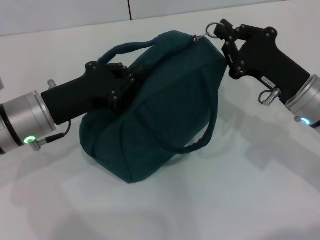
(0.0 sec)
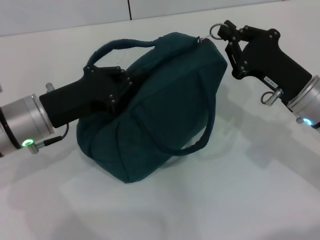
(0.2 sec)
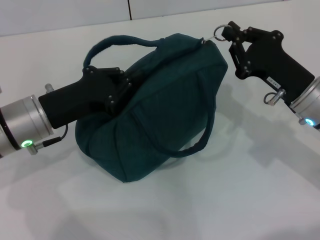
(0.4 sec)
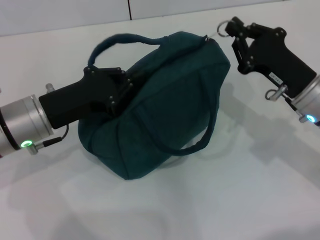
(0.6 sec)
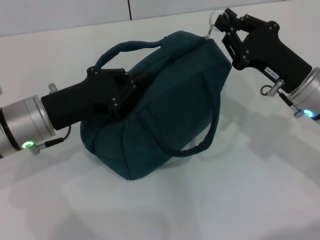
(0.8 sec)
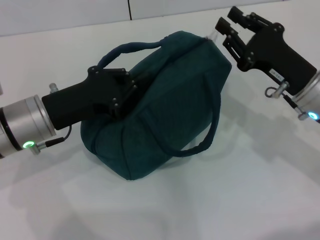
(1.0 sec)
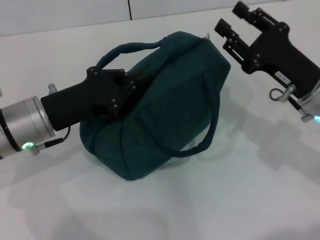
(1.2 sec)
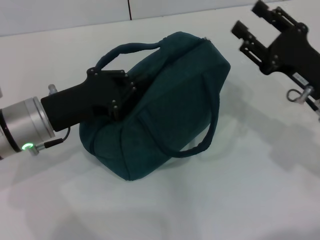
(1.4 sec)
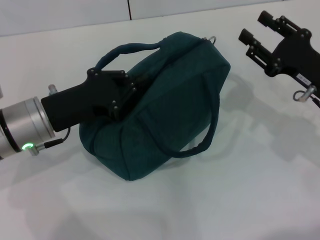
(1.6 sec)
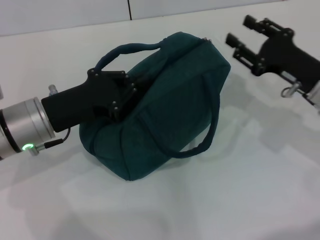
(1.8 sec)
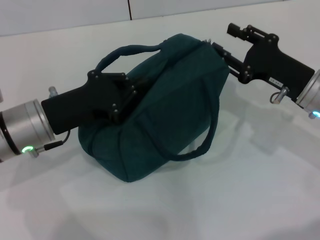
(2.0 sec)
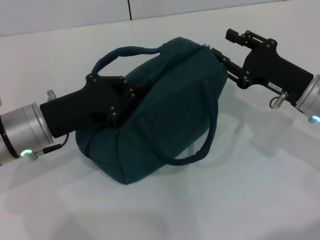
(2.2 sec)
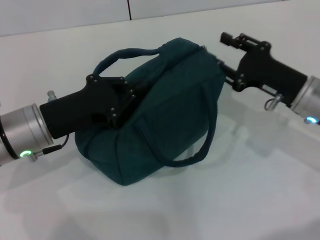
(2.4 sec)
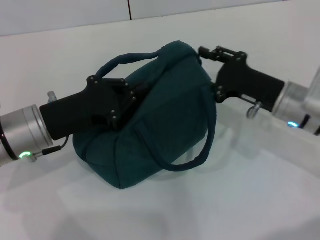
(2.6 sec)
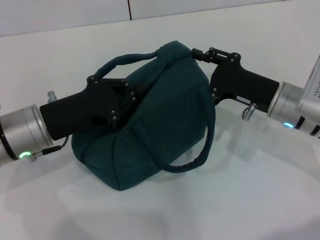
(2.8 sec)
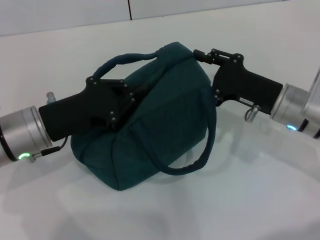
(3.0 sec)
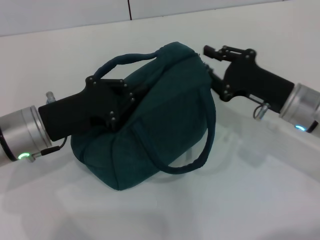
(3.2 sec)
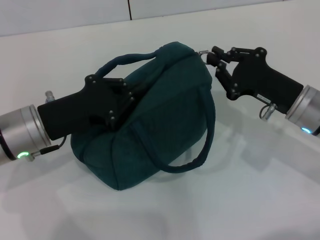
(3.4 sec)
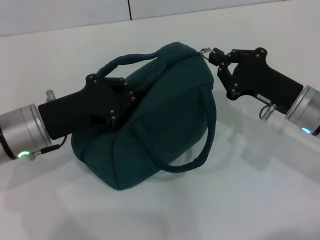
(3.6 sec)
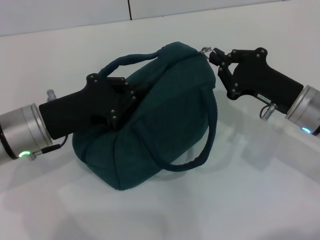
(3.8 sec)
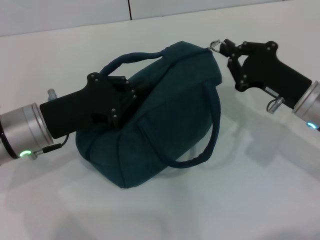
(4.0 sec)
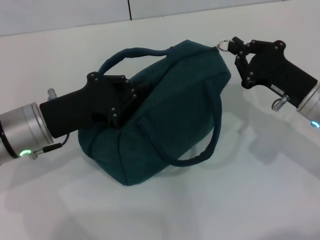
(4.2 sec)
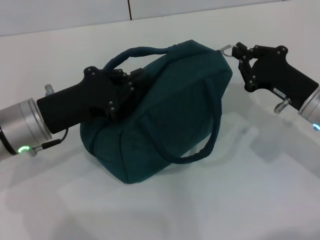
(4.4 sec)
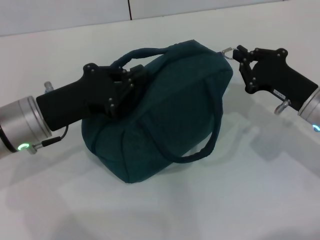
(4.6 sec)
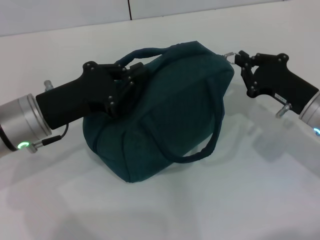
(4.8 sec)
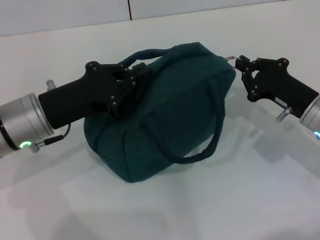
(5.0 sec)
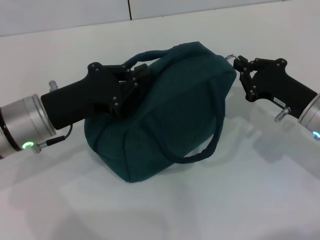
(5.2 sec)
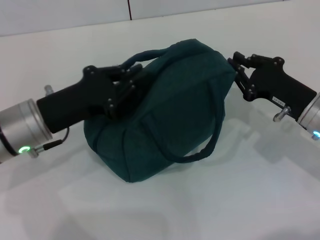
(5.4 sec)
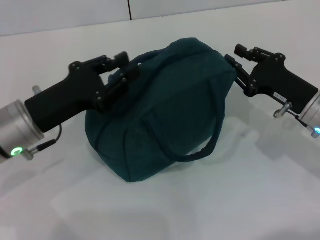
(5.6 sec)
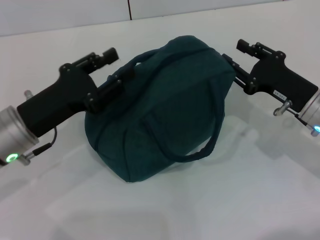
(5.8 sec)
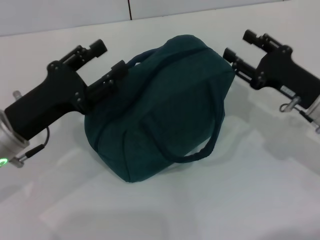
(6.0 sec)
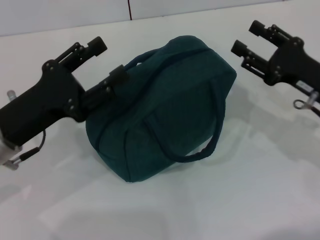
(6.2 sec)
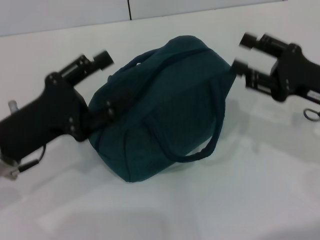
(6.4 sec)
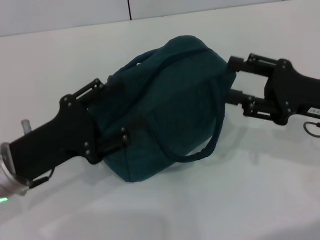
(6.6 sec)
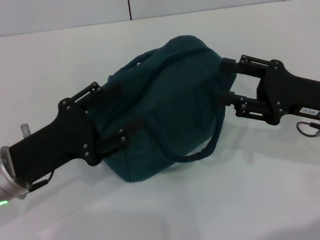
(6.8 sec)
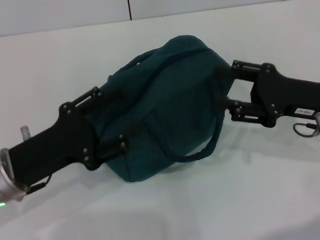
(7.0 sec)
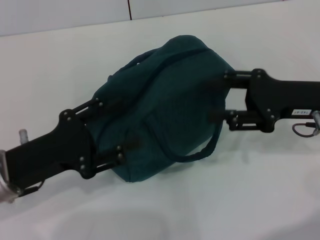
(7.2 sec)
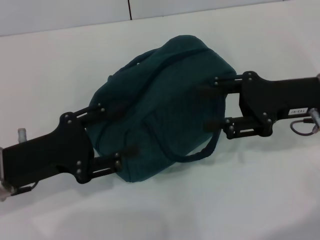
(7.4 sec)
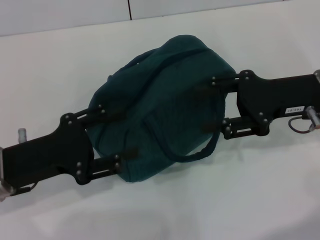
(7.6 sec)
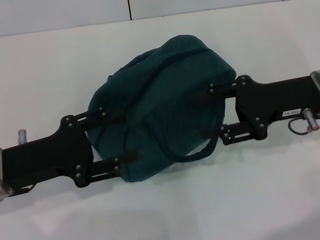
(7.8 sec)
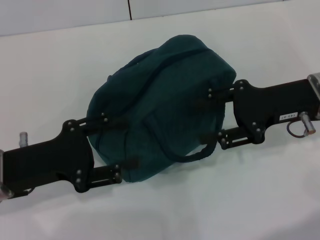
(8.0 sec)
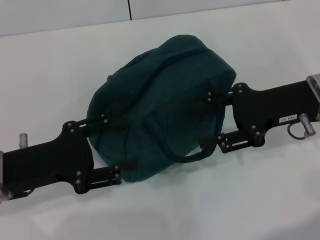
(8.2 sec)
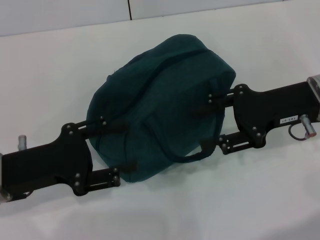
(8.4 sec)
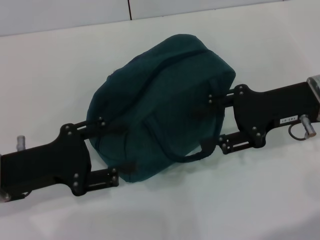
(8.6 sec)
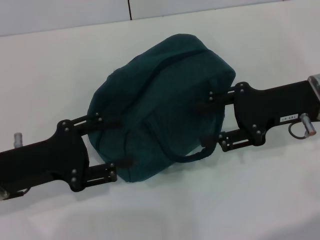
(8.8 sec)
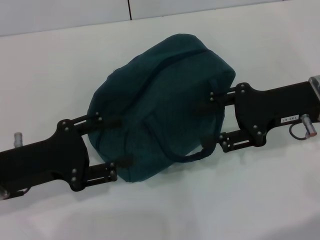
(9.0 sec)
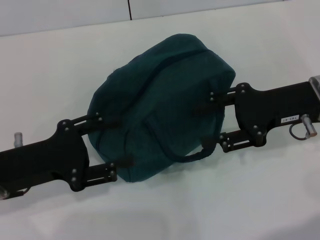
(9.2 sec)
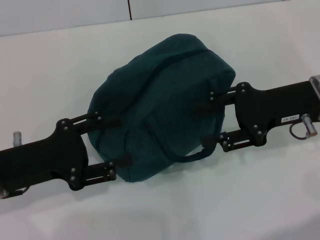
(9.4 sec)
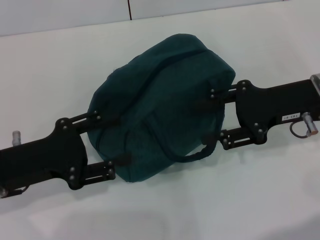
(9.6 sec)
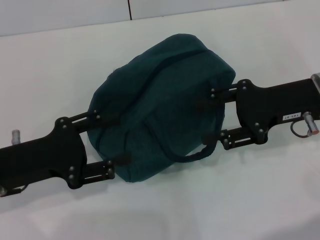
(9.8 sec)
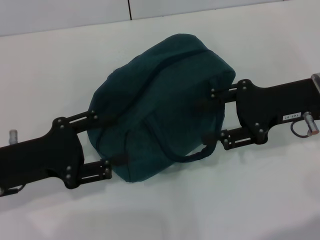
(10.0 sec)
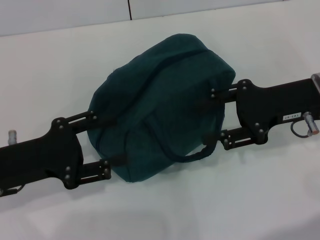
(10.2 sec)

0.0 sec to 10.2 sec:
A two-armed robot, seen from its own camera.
Step, 0.0 sec to 5.8 sec: Hold the lunch bag with your left hand.
0.0 sec to 1.4 sec: The right gripper opens.
1.4 sec to 3.0 sec: The right gripper changes place by roughly 5 cm.
3.0 sec to 4.4 sec: The right gripper closes up.
4.4 sec to 5.8 sec: The left gripper opens up.
5.8 sec to 7.2 sec: The right gripper shifts some 5 cm upward, and opens its fingers; the left gripper opens.
7.2 sec to 8.8 sec: The grippers stay close to where they were, moving slightly.
8.8 sec to 10.2 sec: Neither gripper changes place.

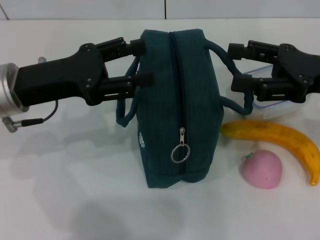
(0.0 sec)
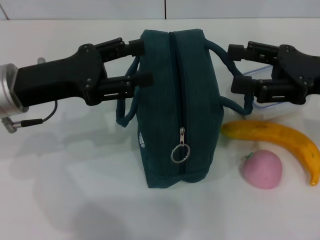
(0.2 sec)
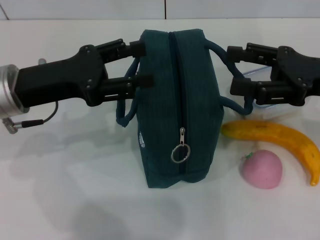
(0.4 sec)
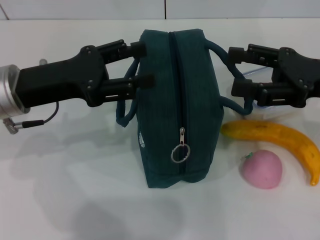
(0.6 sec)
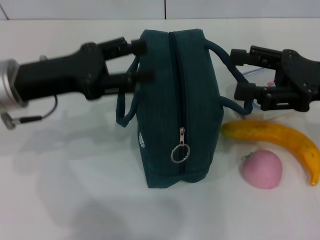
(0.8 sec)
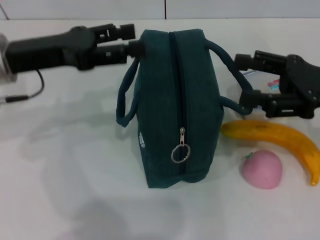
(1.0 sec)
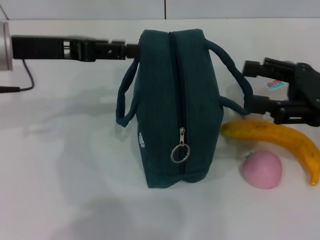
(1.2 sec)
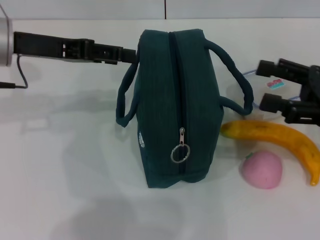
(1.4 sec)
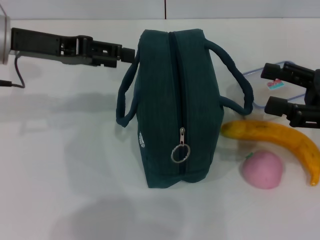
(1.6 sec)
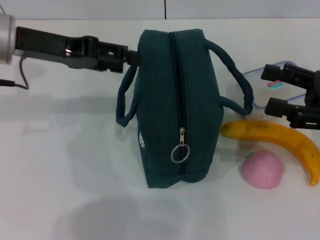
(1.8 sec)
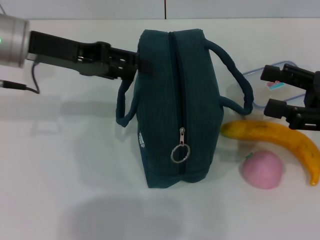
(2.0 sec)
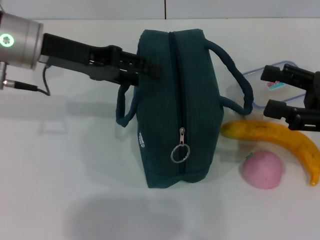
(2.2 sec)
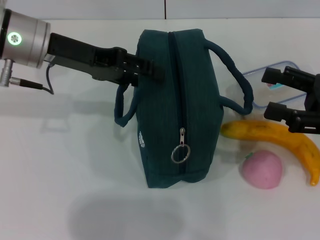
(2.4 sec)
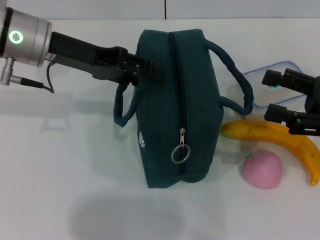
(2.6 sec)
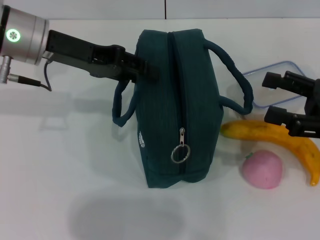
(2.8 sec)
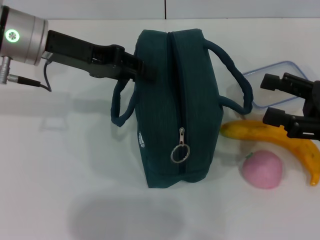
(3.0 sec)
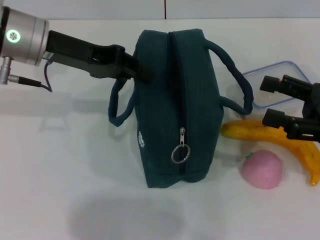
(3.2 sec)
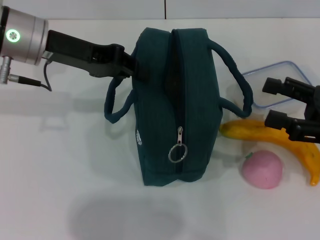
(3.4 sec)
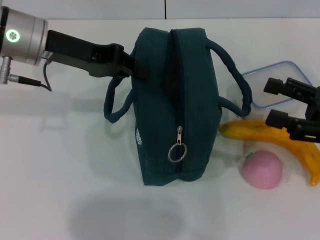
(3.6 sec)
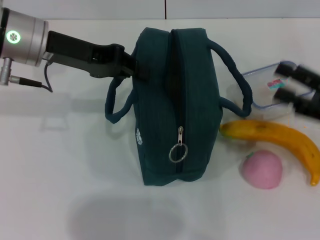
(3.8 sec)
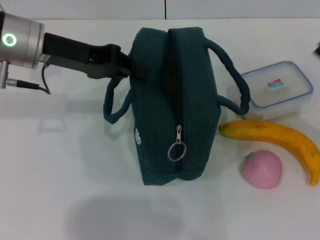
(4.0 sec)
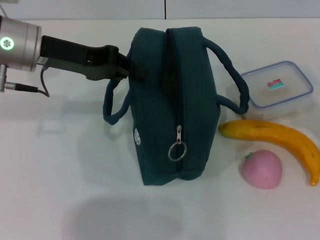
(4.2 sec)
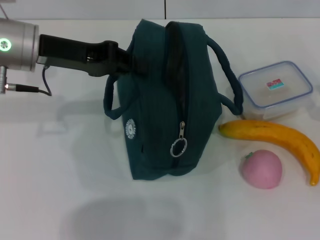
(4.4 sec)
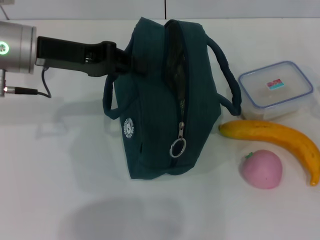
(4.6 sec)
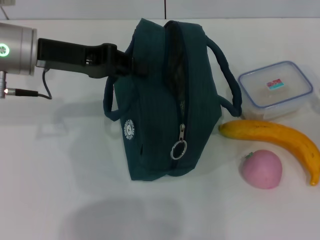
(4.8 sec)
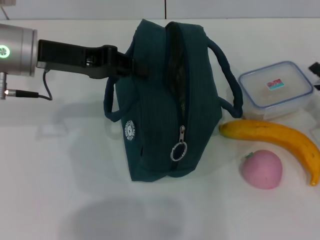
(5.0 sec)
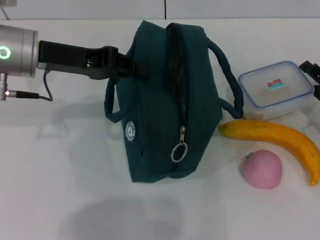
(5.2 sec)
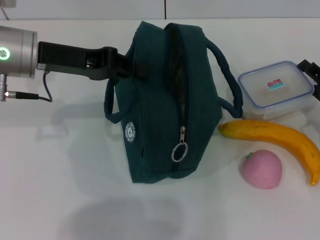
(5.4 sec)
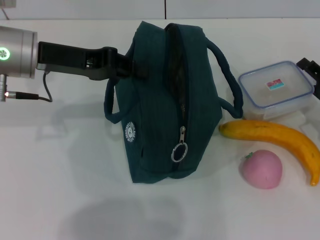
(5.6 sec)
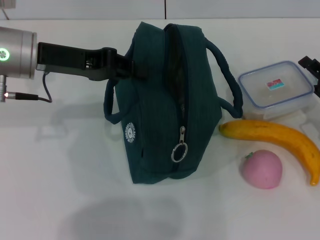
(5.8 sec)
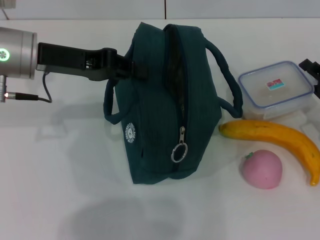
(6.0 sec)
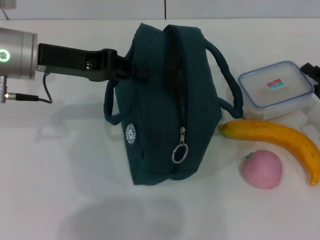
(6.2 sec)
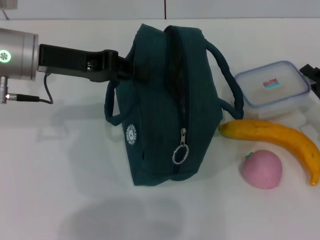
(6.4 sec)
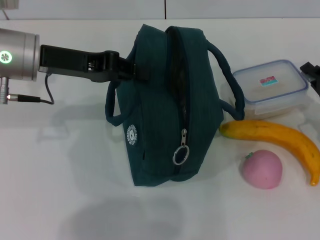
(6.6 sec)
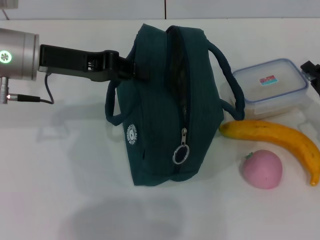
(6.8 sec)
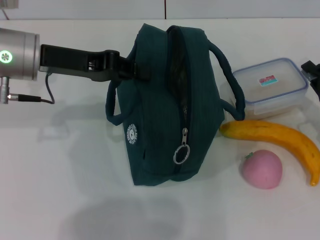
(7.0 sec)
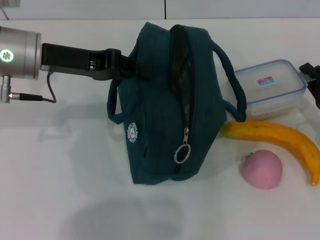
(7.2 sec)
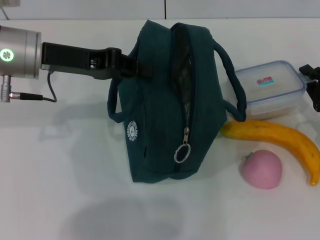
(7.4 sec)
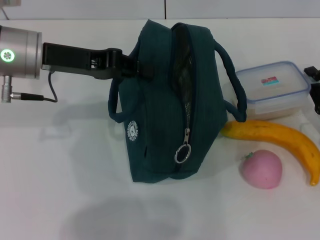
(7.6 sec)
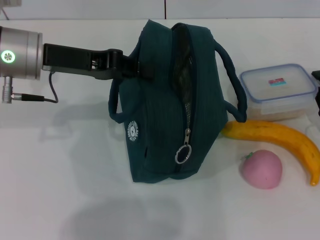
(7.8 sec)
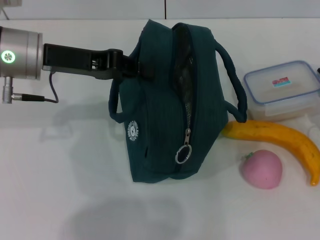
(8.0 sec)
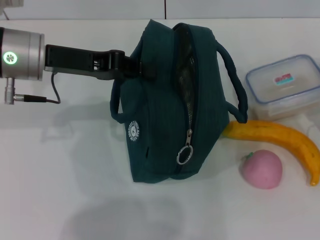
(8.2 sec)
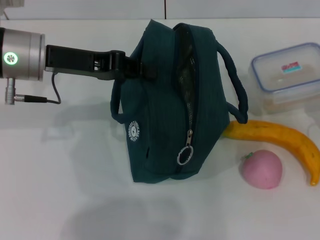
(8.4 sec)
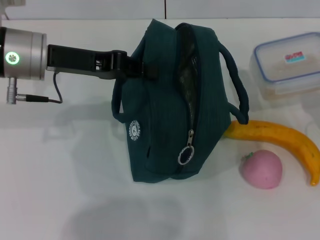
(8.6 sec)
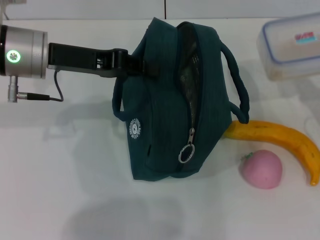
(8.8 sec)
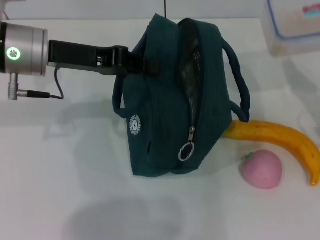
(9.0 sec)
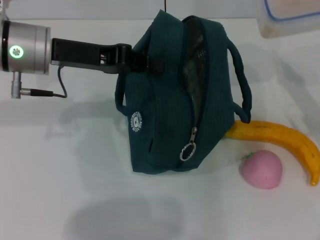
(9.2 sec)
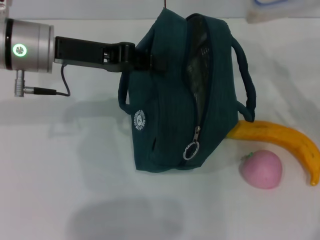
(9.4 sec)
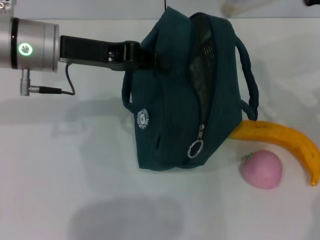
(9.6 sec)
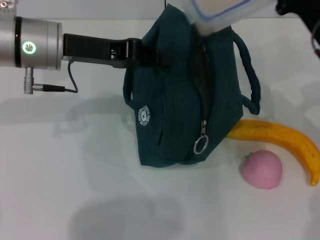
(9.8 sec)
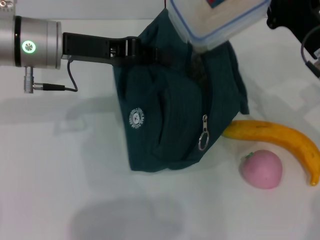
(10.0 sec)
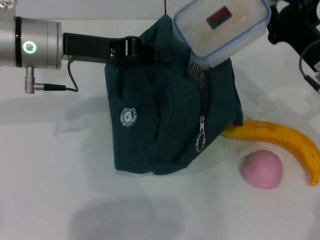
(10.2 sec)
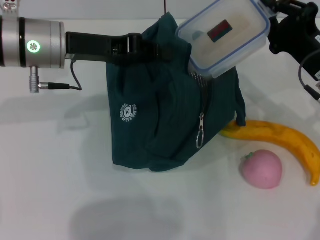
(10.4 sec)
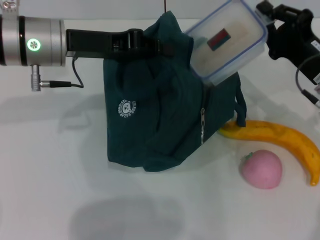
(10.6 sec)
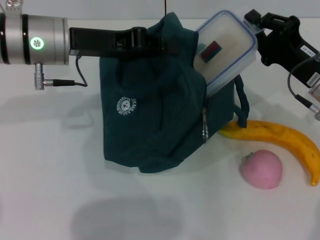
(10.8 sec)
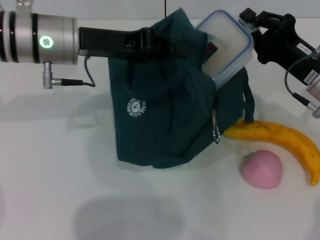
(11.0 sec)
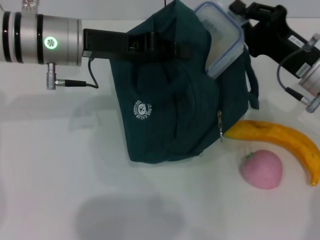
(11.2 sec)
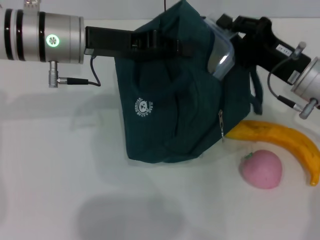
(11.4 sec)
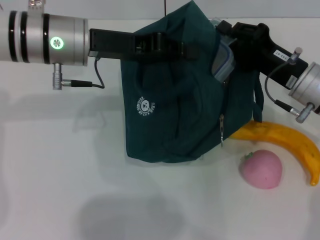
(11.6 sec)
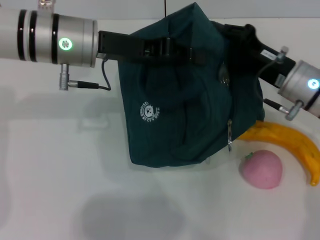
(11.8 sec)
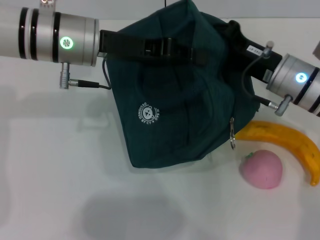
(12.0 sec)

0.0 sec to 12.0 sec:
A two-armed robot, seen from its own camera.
Step, 0.0 sec to 3.6 sec: Hold the lunch bag with your left hand.
Step, 3.8 sec to 6.8 sec: Pick up the lunch box with your right hand.
0.0 sec to 1.6 sec: The right gripper ends up some 5 cm from where it was, while the left gripper shifts some 10 cm upward and forward.
1.6 sec to 3.0 sec: The grippers stay close to where they were, moving slightly.
3.0 sec to 4.4 sec: The left gripper closes. The right gripper heads downward and to the right, covering roughly 10 cm.
4.4 sec to 6.0 sec: The right gripper moves forward, roughly 5 cm.
6.0 sec to 7.6 sec: The right gripper closes its fingers.
7.6 sec to 9.0 sec: The right gripper goes roughly 5 cm upward.
9.0 sec to 10.4 sec: The right gripper goes some 5 cm to the left.
10.4 sec to 12.0 sec: The right gripper is displaced to the left by about 5 cm.
